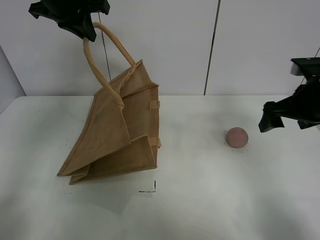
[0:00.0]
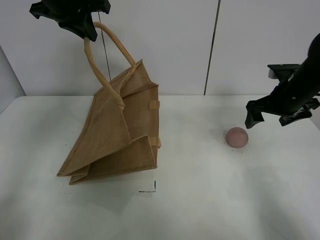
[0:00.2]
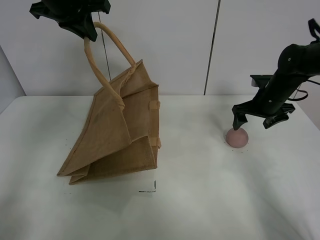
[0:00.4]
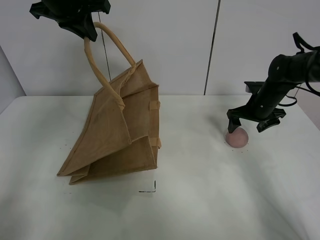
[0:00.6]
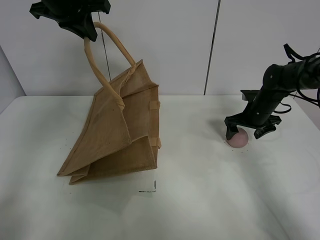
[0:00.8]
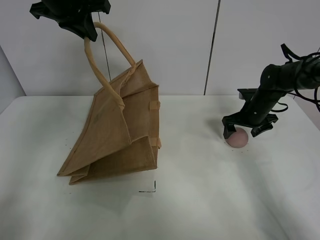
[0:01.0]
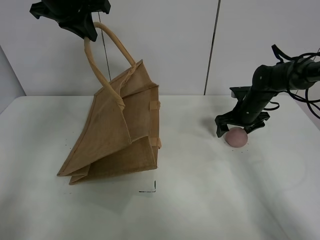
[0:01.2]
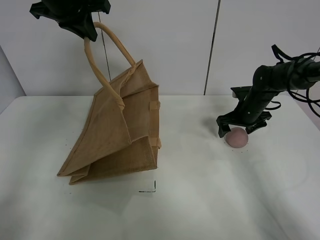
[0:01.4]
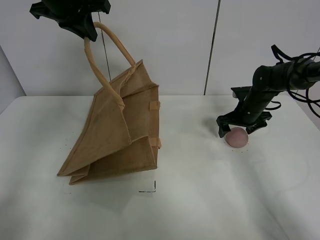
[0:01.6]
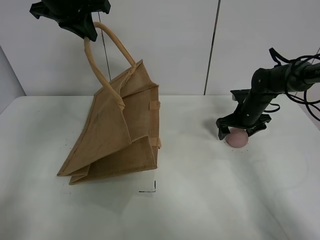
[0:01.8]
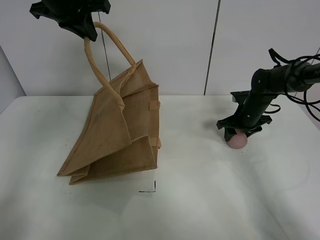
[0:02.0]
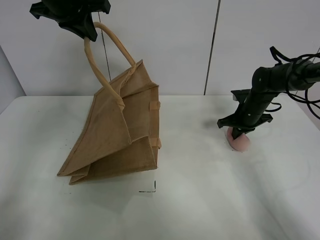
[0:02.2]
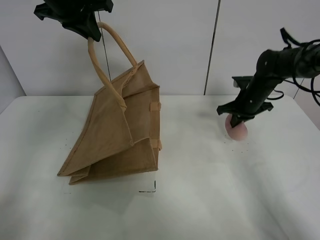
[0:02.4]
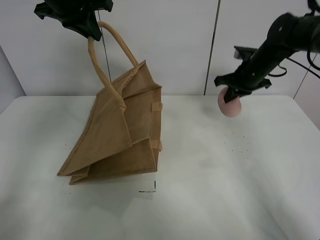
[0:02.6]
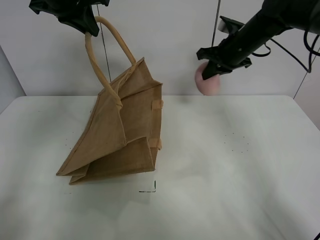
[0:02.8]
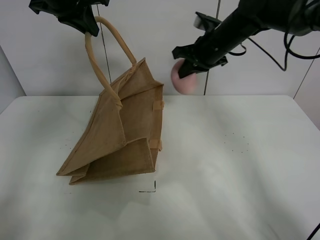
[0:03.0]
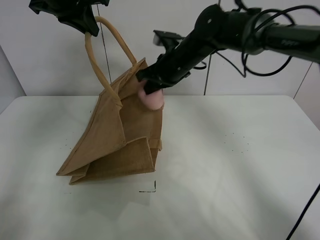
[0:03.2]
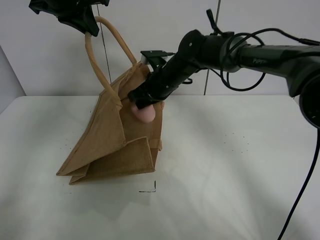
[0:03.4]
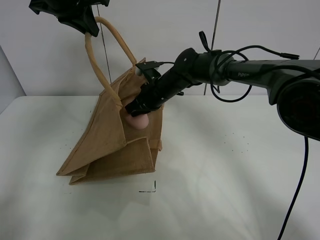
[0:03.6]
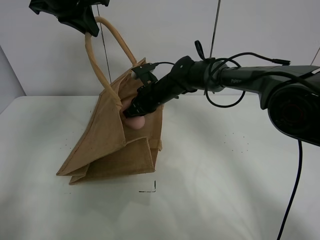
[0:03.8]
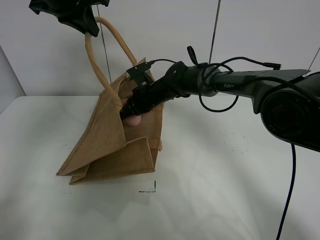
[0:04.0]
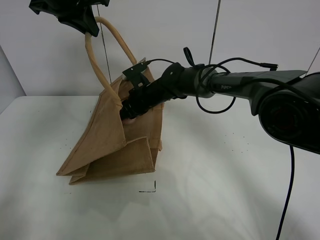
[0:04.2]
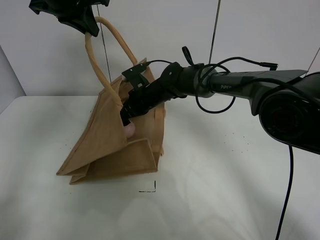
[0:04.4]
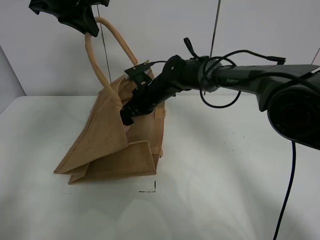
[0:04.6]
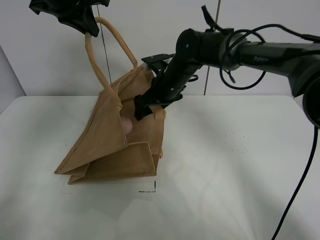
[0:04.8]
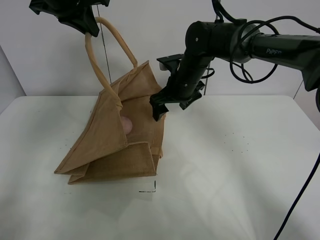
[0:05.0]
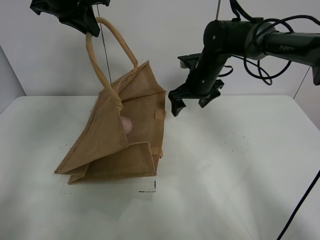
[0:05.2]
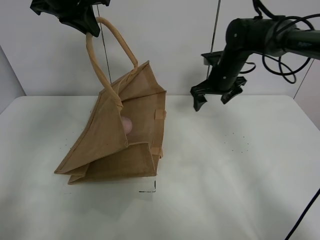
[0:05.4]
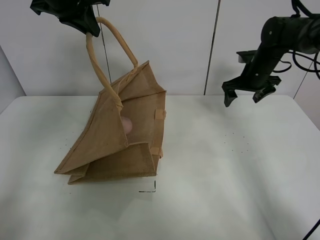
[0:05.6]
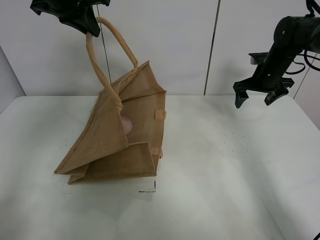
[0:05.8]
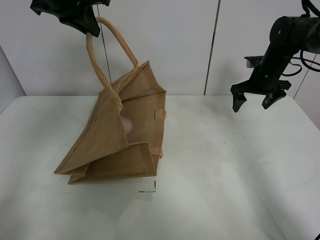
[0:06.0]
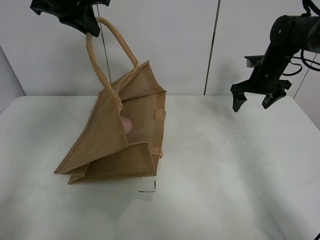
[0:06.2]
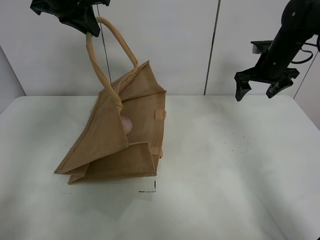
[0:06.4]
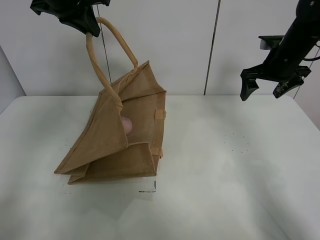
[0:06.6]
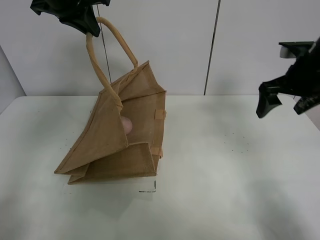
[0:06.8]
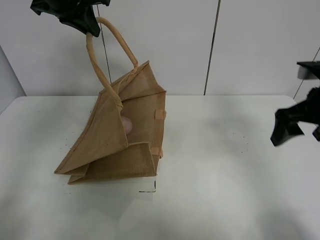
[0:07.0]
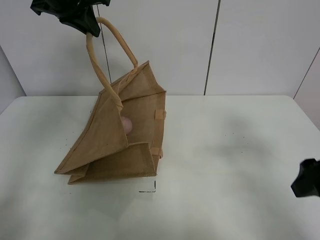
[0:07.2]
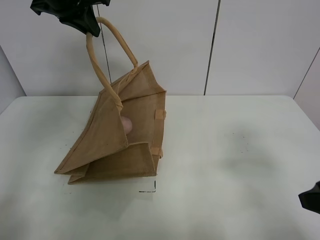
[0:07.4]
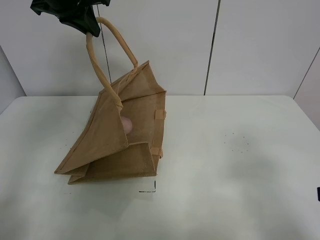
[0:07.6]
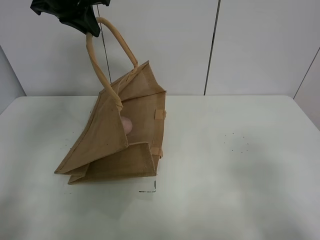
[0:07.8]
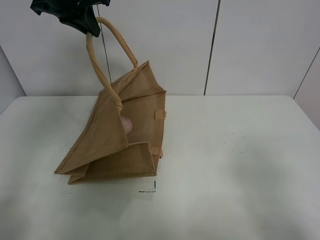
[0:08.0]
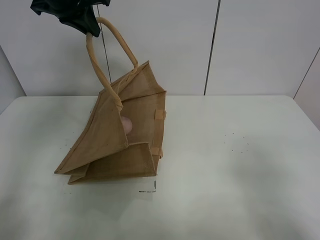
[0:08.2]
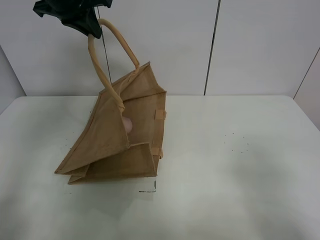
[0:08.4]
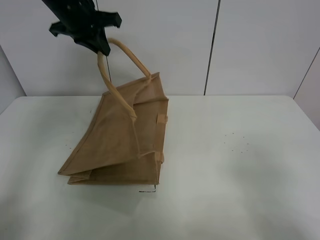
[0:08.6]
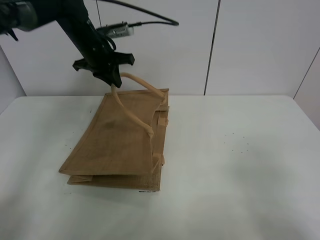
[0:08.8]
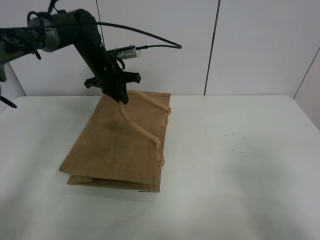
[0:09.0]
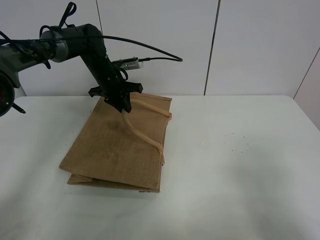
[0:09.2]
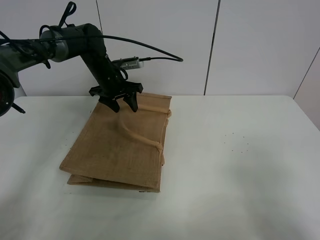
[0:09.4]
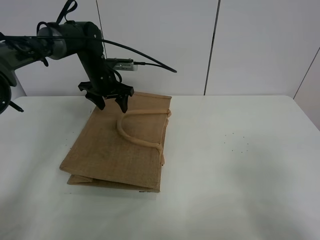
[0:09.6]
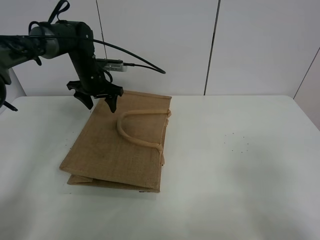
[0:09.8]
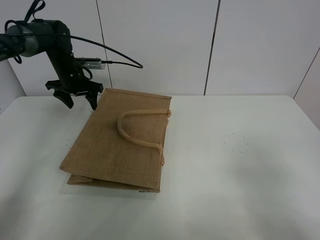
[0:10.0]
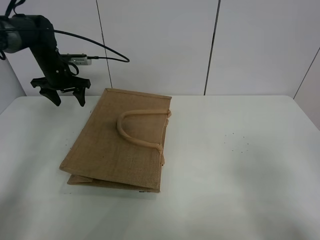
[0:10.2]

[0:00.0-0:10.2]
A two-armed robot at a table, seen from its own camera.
Task of the whole recording: open the brown linen bag and put the peach in the bag.
Step, 0:00.0 to 0:02.2: Grasp the peach with right gripper.
Step, 0:02.4 to 0:05.0: Place the peach in the handbag with right gripper.
Step, 0:05.2 to 0:10.0: Put down the handbag with left grippe.
0:00.0 to 0:01.4: The right gripper is displaced downward and forward by about 20 cm.
0:01.4 to 0:03.0: The right gripper shifts about 20 cm upward and to the left, and closes up.
0:03.0 to 0:04.4: The right gripper goes roughly 20 cm downward and to the left, and opens.
0:04.4 to 0:05.8: The right gripper is displaced to the right by approximately 30 cm.
0:05.8 to 0:07.2: The right gripper moves backward, about 35 cm.
0:07.2 to 0:08.8: The left gripper goes about 15 cm downward and forward, while the right gripper travels backward by approximately 15 cm.
0:08.8 to 0:10.2: The left gripper goes roughly 15 cm to the left, and opens.

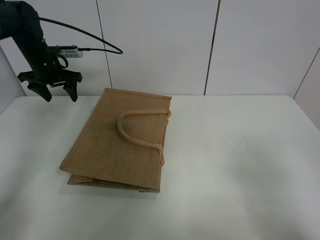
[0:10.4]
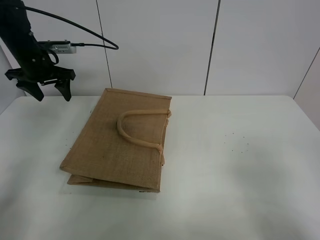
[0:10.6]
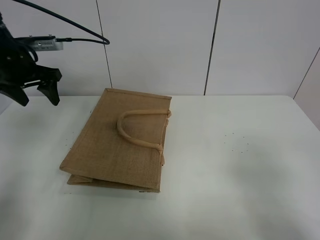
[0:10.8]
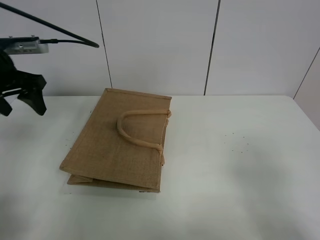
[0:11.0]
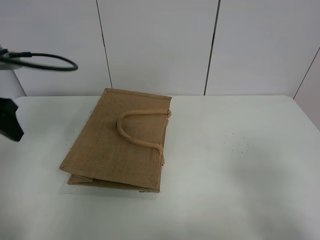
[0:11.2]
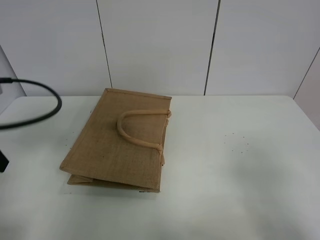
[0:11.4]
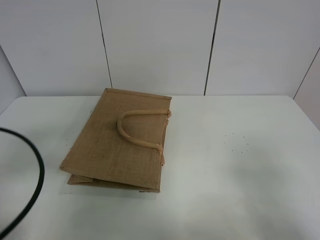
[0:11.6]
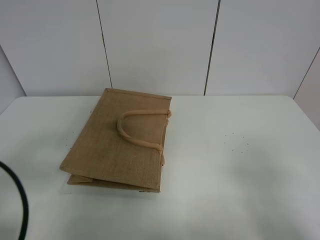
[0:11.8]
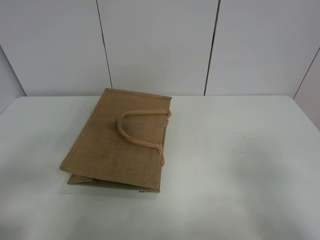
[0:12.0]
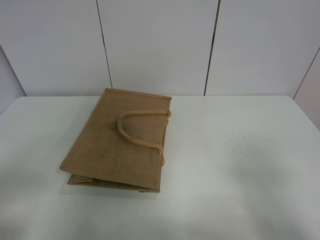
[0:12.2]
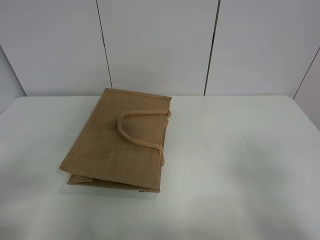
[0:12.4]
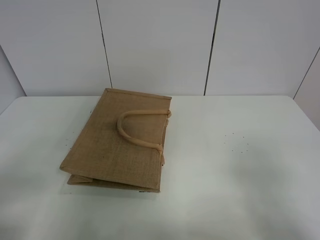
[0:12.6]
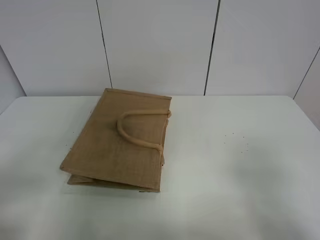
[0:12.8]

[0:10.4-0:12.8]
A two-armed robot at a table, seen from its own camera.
Task of the whole recording: open the brown linen bag and put the peach in the bag.
0:10.4 to 0:11.6: The left gripper travels backward by approximately 35 cm.
0:11.6 to 0:12.8: The left gripper moves backward, some 10 cm.

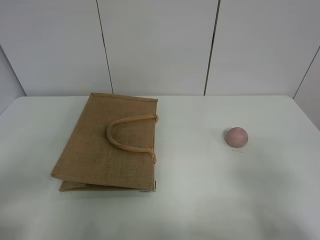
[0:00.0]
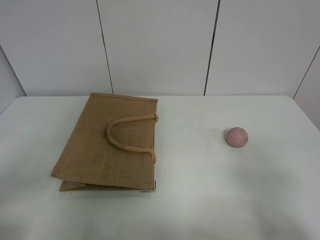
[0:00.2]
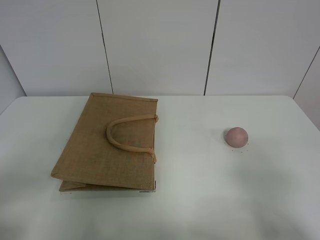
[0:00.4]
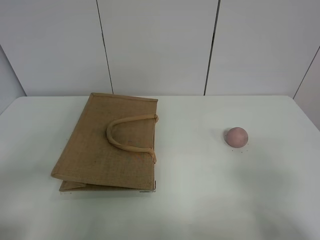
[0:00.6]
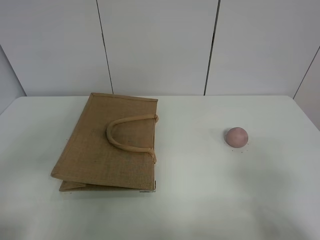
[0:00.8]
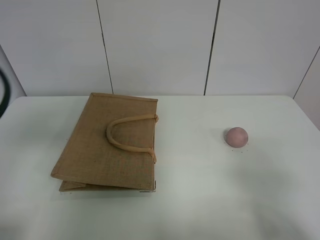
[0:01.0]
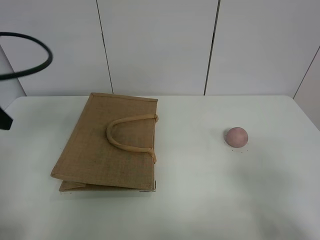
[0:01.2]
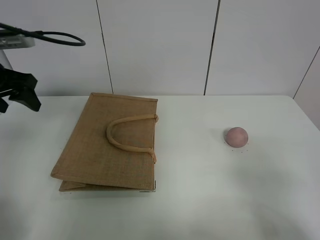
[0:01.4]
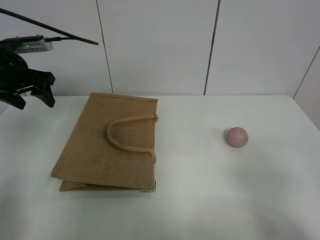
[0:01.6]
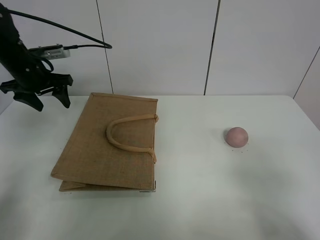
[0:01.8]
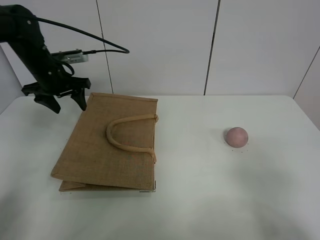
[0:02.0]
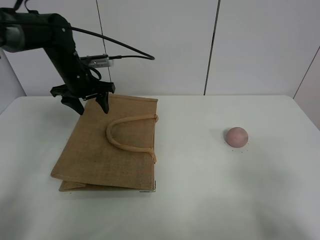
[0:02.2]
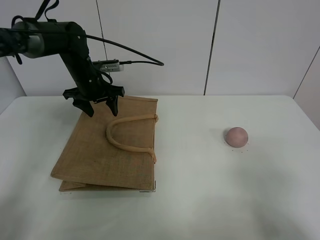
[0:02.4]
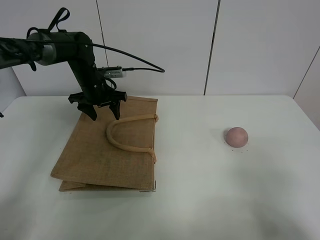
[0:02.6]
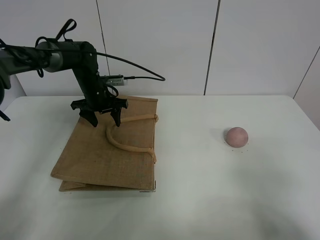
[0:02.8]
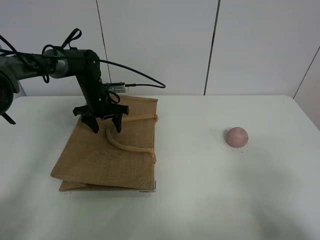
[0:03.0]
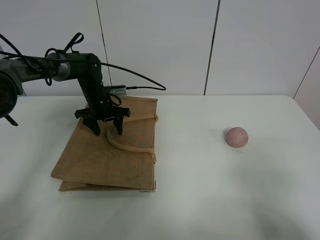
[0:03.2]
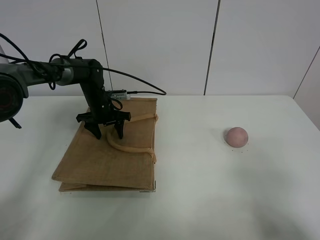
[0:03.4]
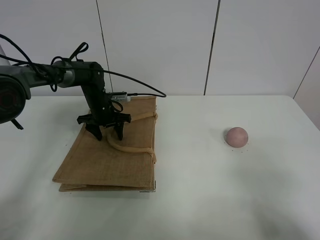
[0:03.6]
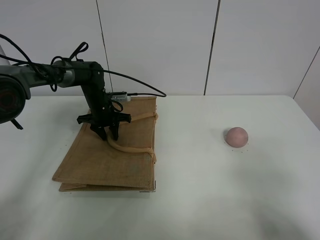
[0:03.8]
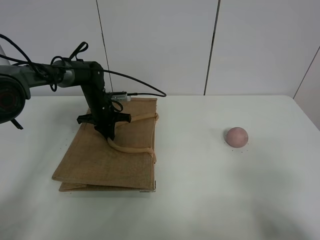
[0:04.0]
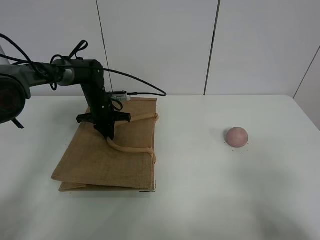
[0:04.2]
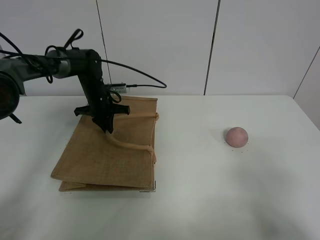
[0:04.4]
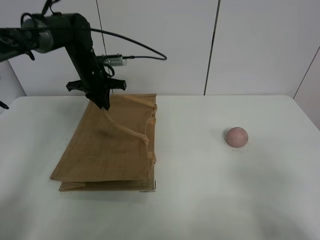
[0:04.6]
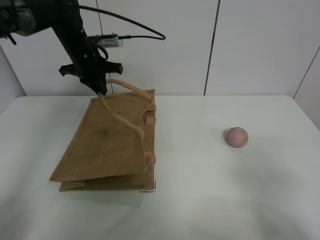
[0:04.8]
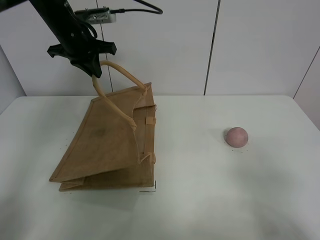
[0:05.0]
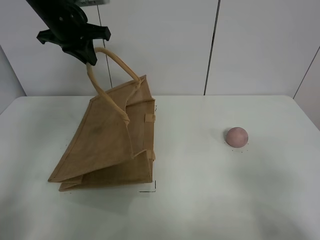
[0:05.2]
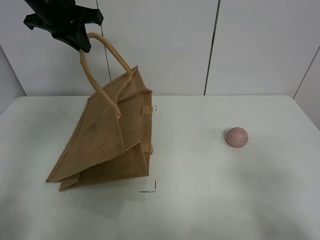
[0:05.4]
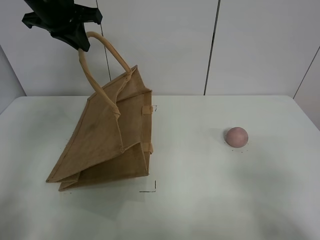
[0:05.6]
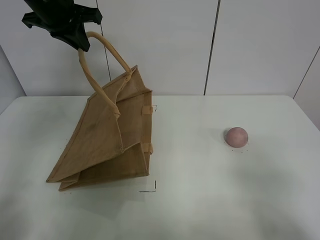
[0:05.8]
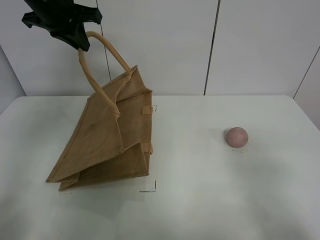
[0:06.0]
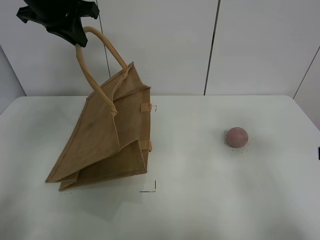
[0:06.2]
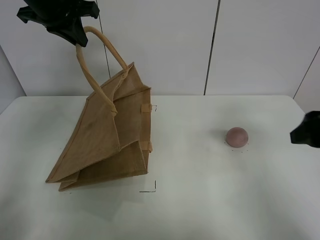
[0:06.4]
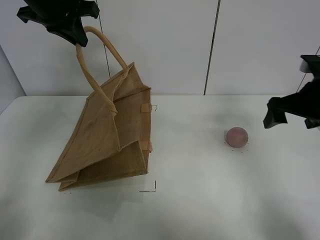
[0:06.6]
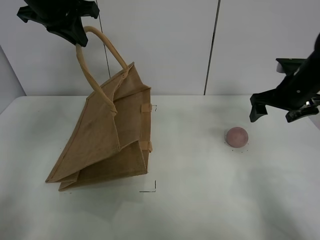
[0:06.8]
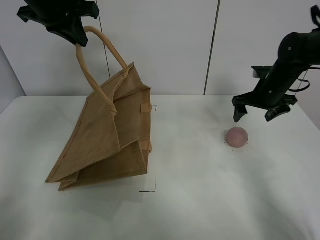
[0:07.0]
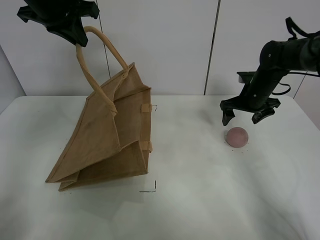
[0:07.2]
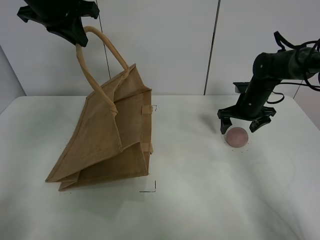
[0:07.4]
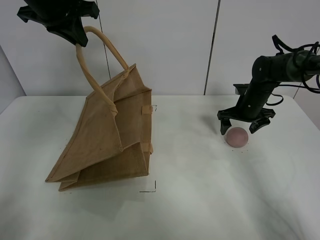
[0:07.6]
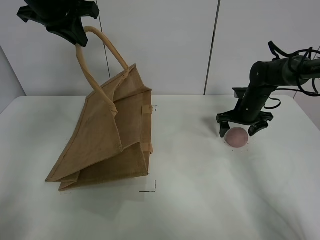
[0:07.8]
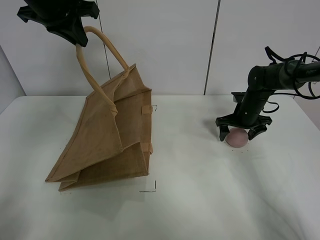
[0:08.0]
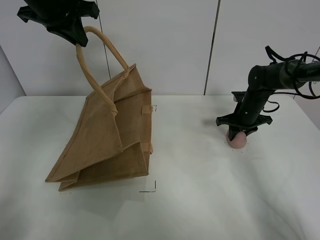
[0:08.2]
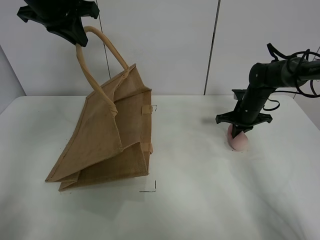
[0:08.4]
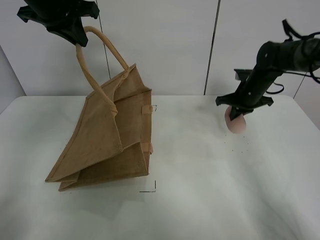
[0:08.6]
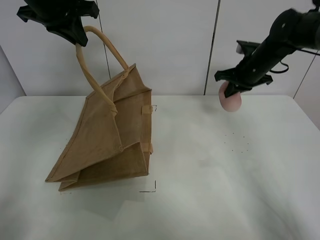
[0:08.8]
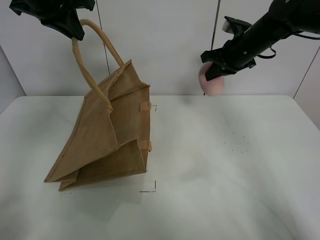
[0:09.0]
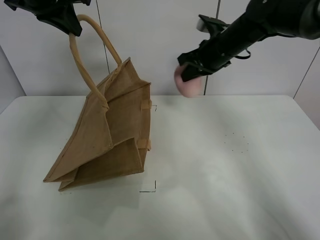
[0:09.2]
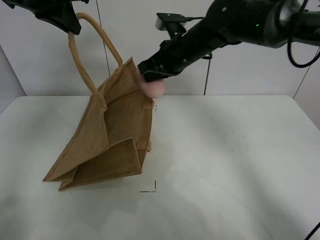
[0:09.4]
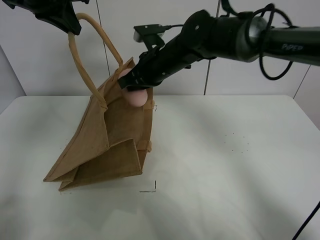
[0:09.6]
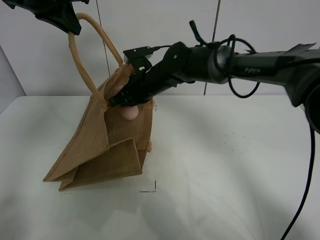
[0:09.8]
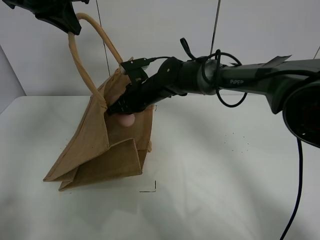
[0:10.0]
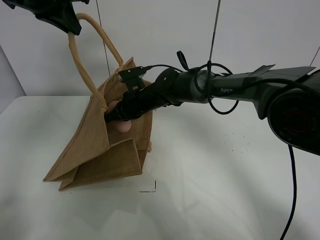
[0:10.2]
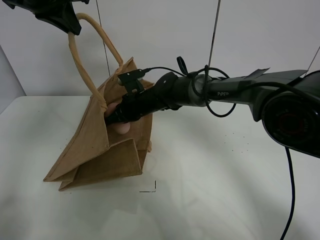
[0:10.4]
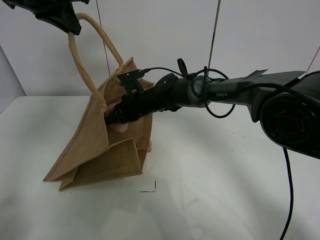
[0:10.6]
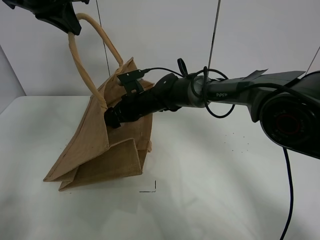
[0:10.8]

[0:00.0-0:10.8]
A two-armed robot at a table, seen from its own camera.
Task of the whole recording: open the brown linen bag and put the peach in the bag.
Step, 0:00.0 to 0:05.6: Lift the handbag with left gripper.
Step, 0:05.8 to 0:08.2: Grasp the peach with right gripper.
0:00.0 to 0:01.6: The left gripper heads forward, covering some 35 cm.
0:01.6 to 0:03.0: The left gripper shifts roughly 20 cm downward, to the right and forward.
0:03.0 to 0:04.6: The left gripper travels upward by approximately 10 cm, and closes its fingers.
0:04.6 to 0:06.2: The right gripper is displaced forward by approximately 15 cm. Meanwhile the left gripper moves upward and backward, about 20 cm.
0:06.2 to 0:07.8: The right gripper is displaced forward and downward by approximately 35 cm.
0:07.8 to 0:09.2: The right gripper heads upward and to the left, covering approximately 20 cm, and closes.
0:09.2 to 0:10.8: The right gripper travels to the left and downward by some 20 cm, and opens up.
